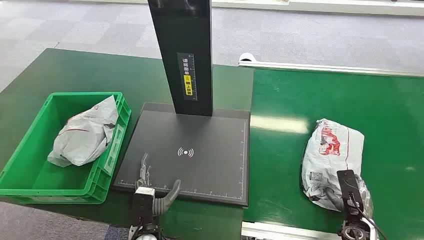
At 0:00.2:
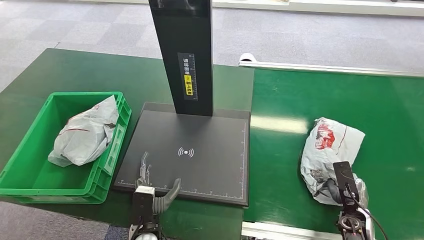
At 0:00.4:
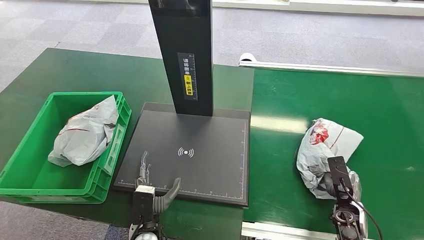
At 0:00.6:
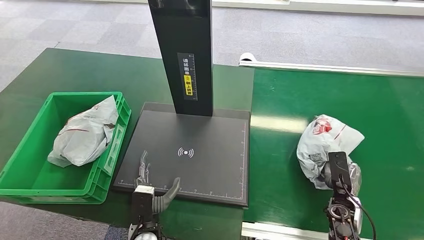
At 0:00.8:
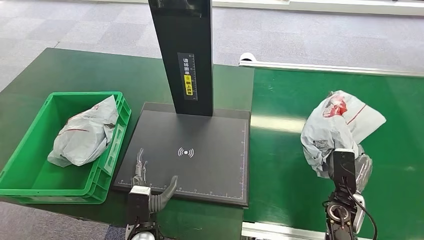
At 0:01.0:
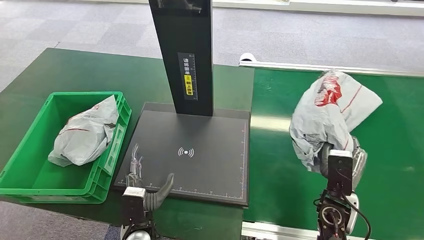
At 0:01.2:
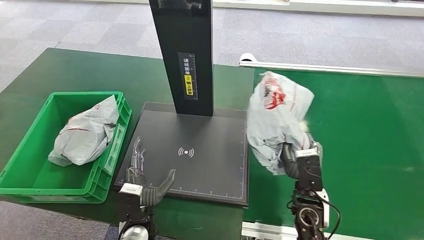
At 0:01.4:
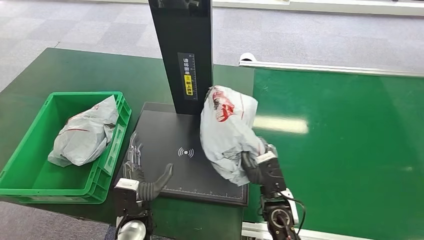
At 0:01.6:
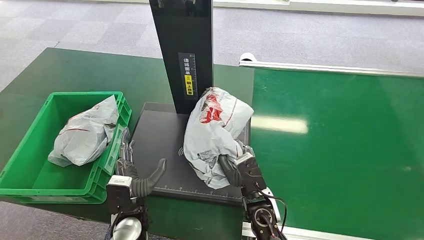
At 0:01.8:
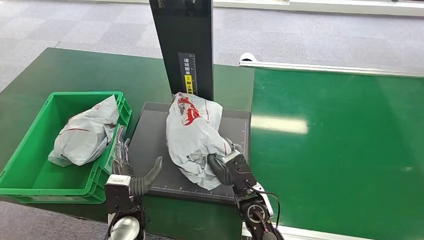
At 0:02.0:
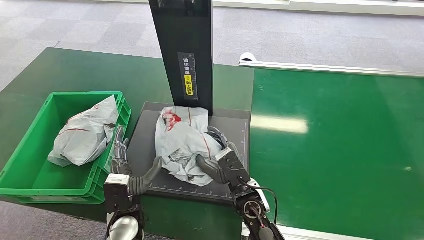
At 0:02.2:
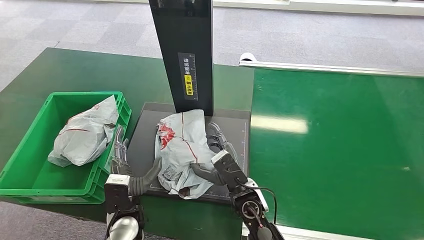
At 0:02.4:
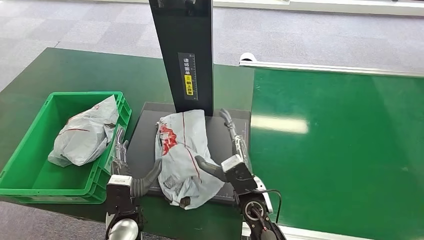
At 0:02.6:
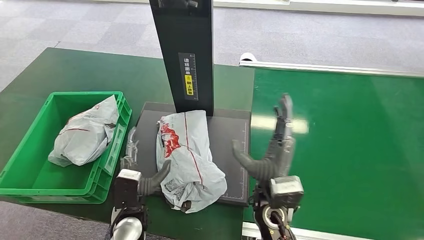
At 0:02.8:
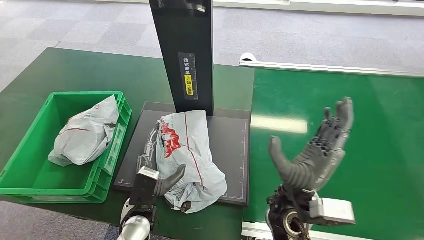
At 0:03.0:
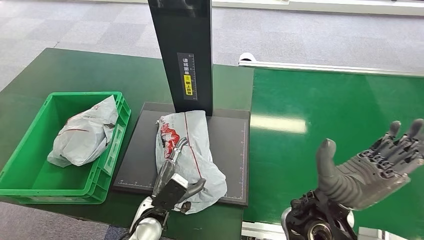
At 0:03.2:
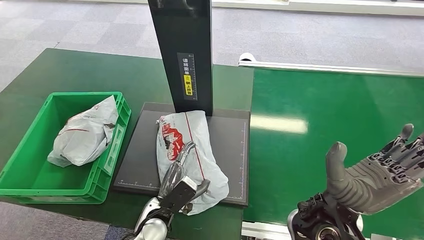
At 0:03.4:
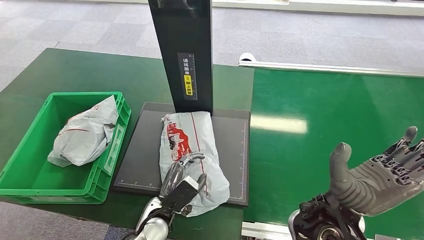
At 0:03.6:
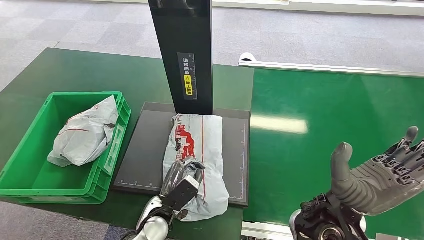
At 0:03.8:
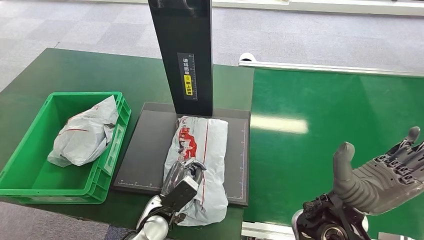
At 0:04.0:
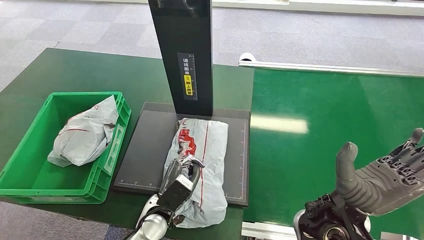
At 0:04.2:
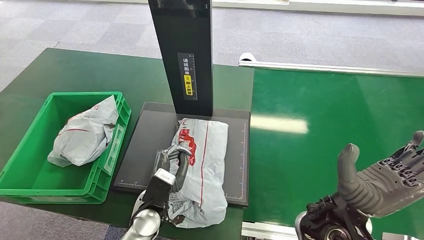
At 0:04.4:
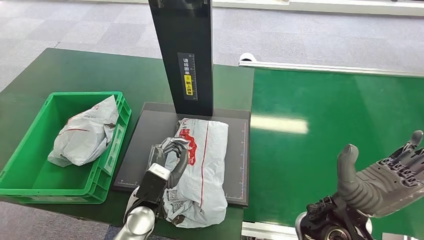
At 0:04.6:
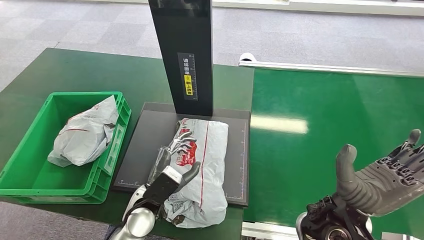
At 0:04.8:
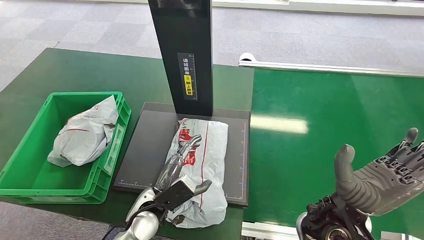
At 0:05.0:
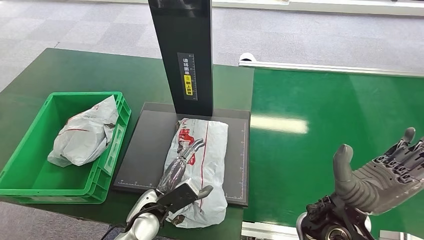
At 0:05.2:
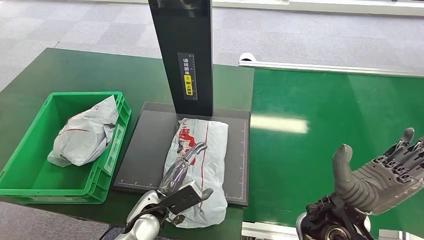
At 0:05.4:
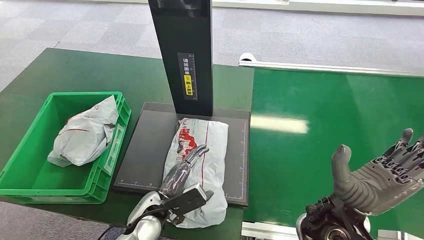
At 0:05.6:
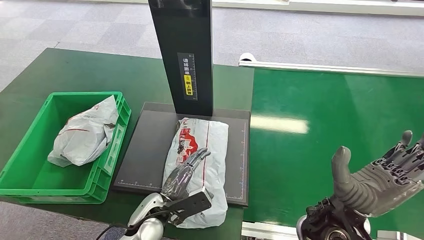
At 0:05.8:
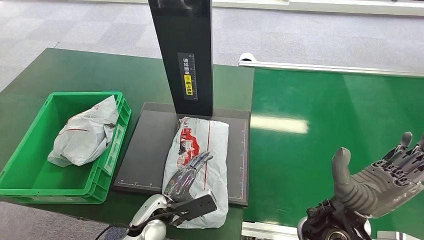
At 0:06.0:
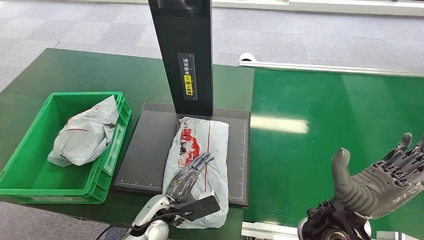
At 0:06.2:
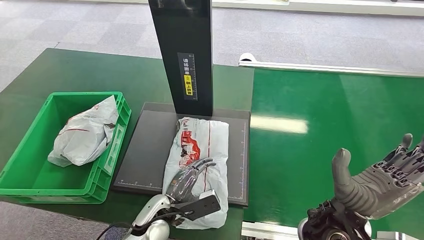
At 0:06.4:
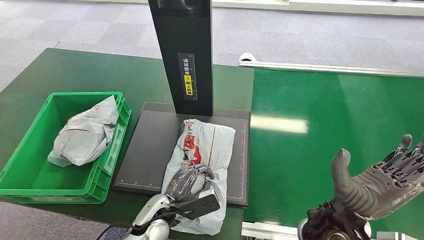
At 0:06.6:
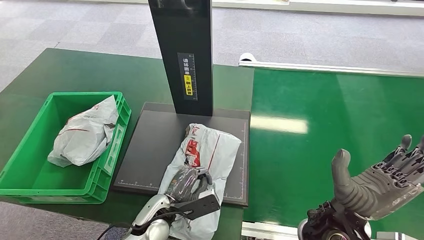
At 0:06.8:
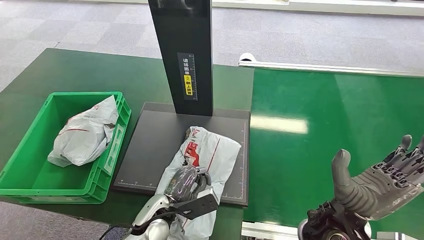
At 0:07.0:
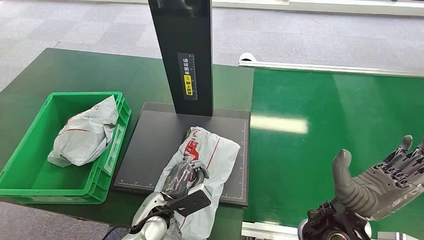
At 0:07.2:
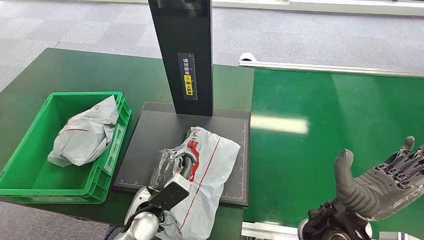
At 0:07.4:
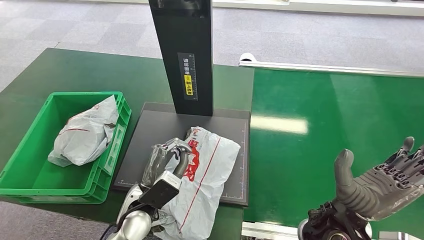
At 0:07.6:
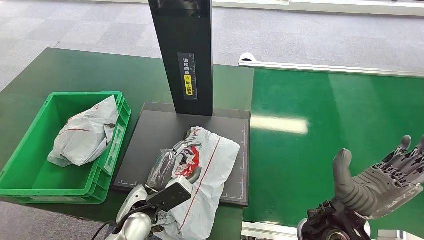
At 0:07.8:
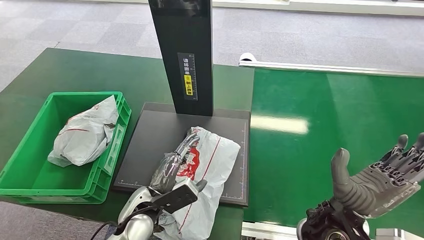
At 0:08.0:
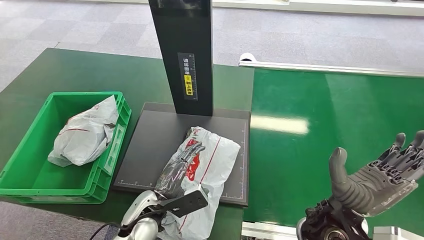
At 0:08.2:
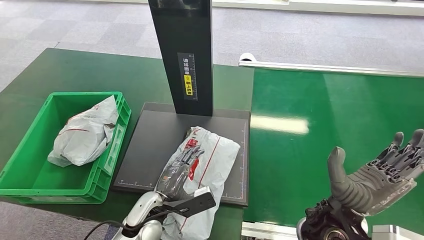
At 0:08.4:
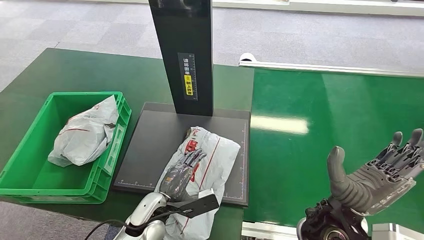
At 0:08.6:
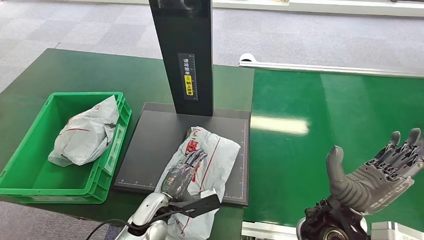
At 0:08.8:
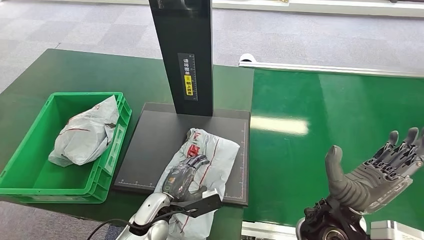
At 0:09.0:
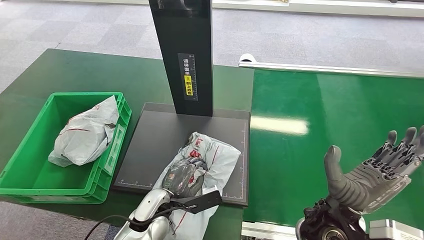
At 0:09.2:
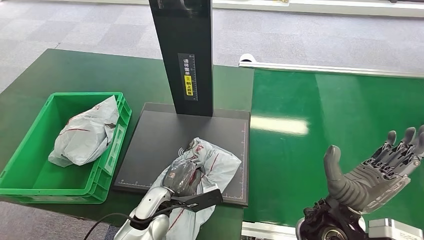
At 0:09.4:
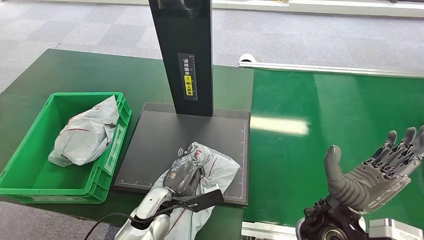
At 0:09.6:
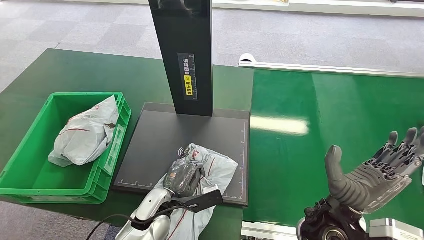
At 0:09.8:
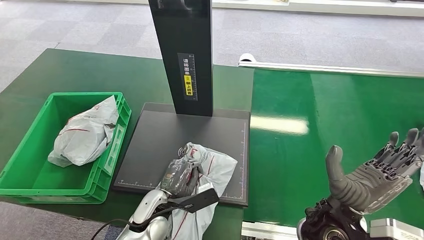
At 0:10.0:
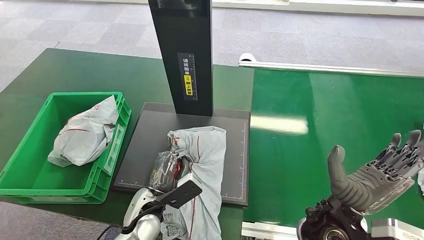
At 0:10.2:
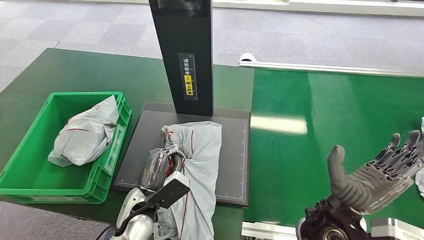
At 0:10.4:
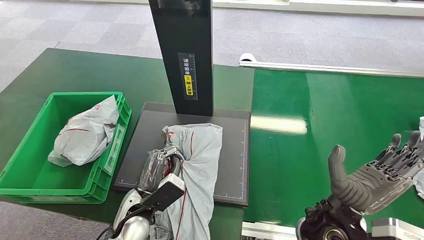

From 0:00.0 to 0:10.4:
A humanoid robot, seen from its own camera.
Step, from 0:00.0 to 0:01.2: Pick up the package from the conveyor belt.
Step, from 0:01.4 to 0:02.8: Place the package onto the inbound machine.
From 0:01.4 to 0:03.0: The right hand travels upward by about 10 cm.
From 0:03.0 to 0:04.4: The hands move only a little.
From 0:06.0 to 0:07.4: The left hand moves upward, approximately 5 cm.
From 0:07.4 to 0:09.0: The left hand goes about 5 cm downward.
From 0:09.0 to 0:10.4: The left hand shifts by about 5 cm.

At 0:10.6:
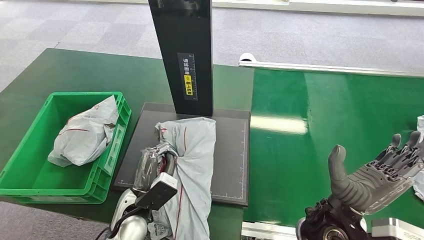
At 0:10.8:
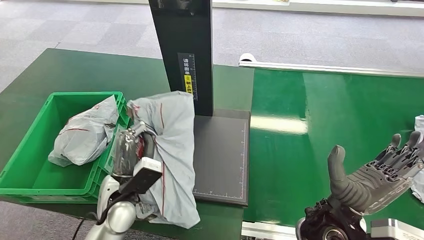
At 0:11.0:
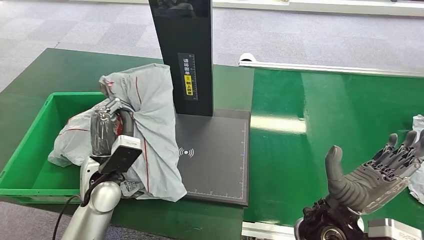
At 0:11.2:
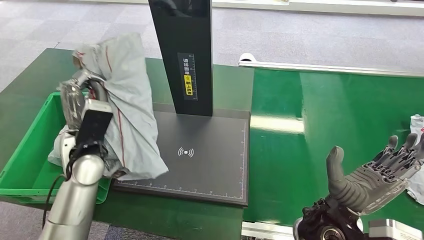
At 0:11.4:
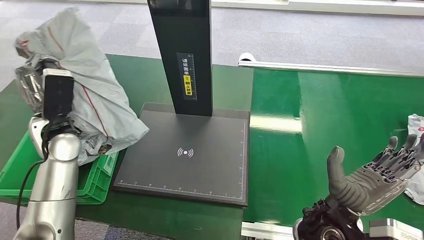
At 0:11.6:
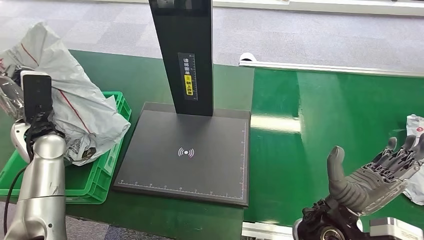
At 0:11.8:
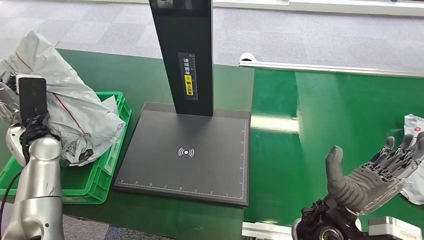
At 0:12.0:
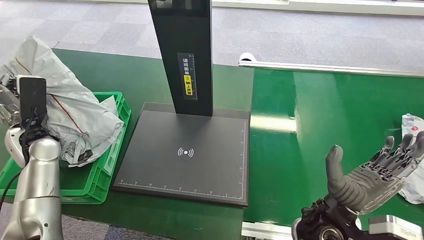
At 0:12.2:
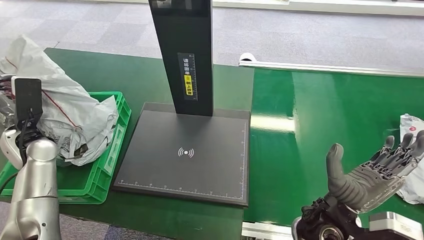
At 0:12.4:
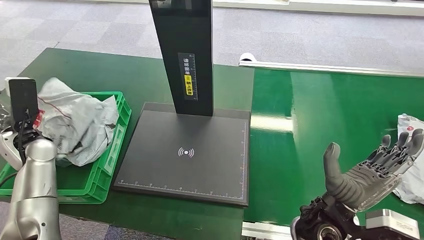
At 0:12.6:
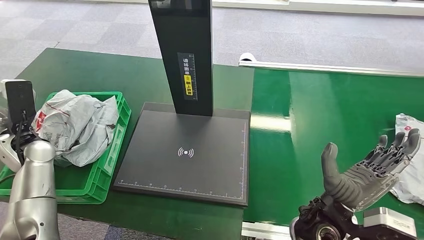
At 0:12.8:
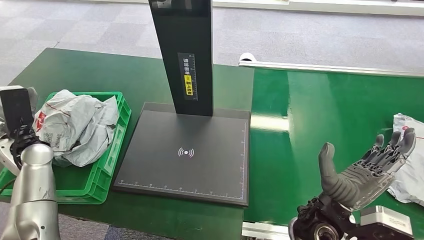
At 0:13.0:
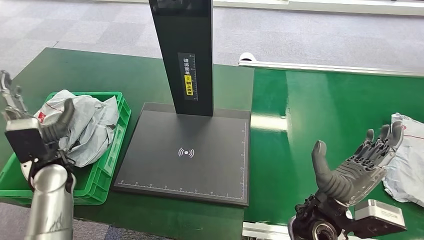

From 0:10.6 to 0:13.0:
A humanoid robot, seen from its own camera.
Step, from 0:11.8 to 0:13.0: Place the package into the parcel locker.
